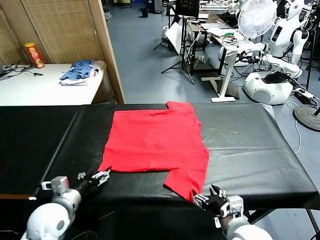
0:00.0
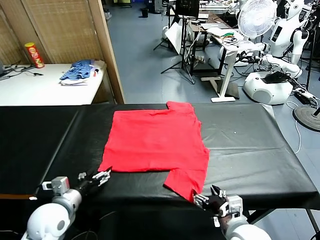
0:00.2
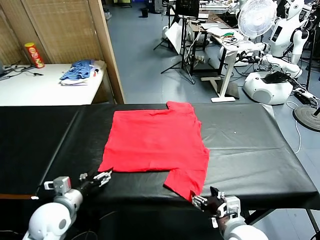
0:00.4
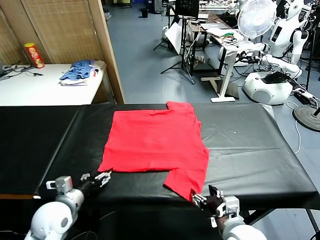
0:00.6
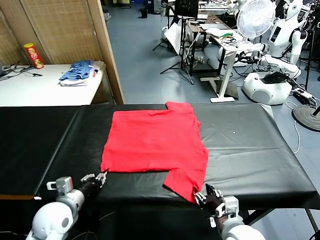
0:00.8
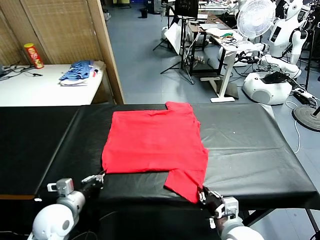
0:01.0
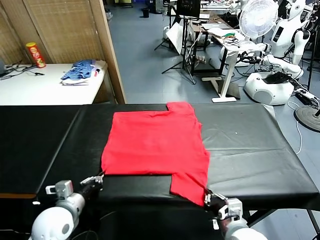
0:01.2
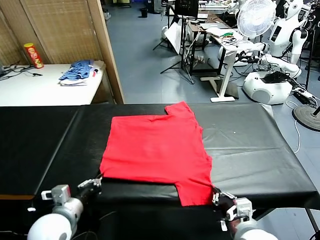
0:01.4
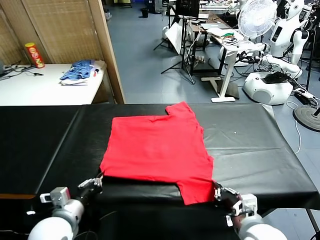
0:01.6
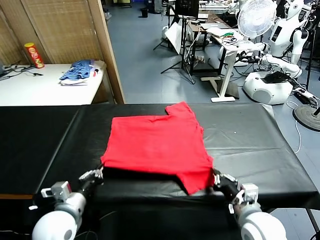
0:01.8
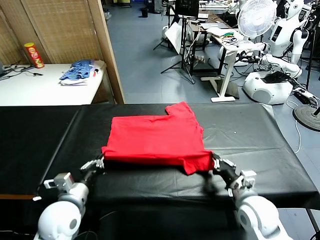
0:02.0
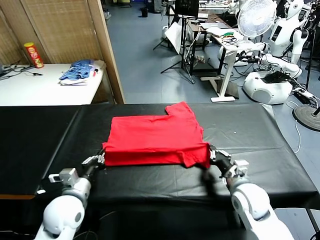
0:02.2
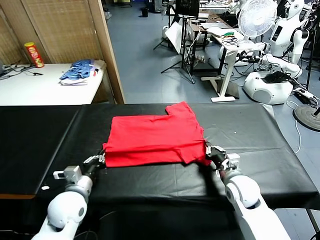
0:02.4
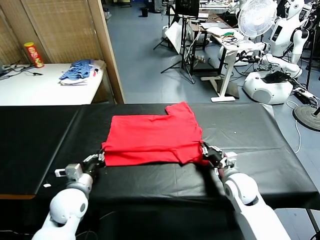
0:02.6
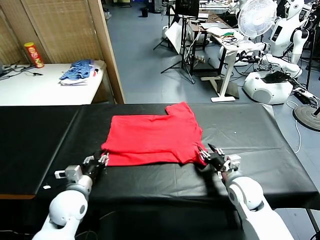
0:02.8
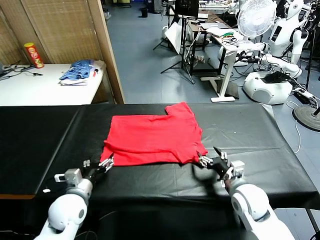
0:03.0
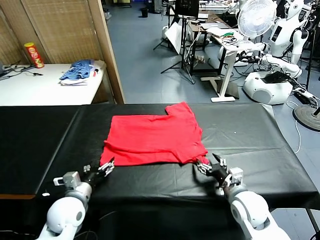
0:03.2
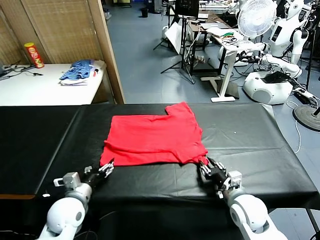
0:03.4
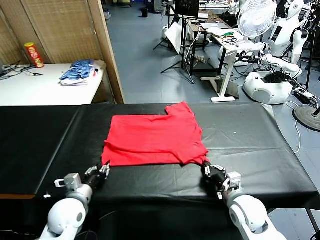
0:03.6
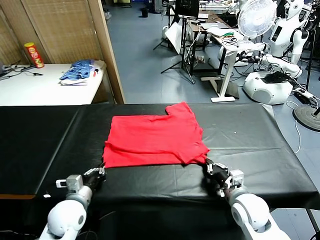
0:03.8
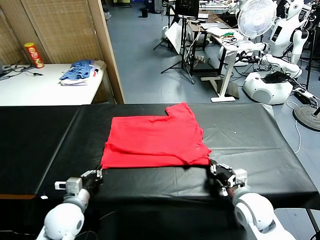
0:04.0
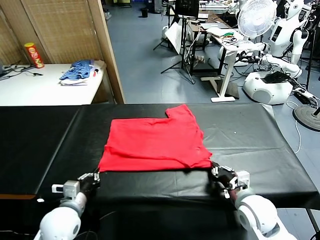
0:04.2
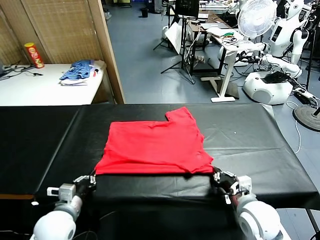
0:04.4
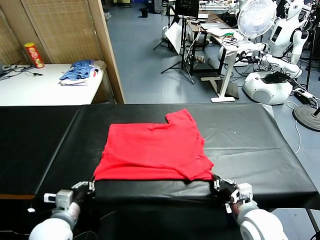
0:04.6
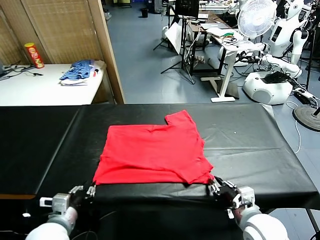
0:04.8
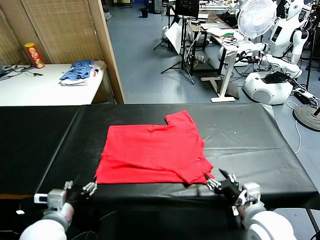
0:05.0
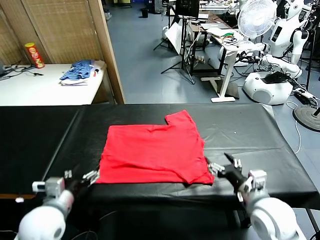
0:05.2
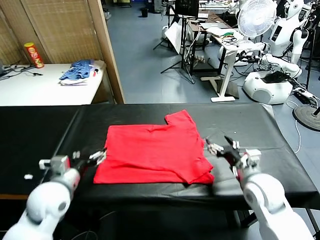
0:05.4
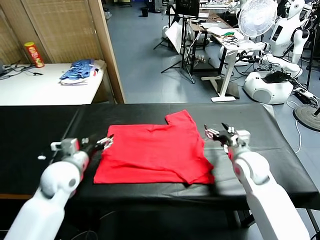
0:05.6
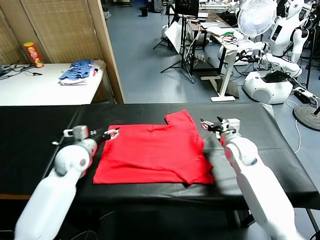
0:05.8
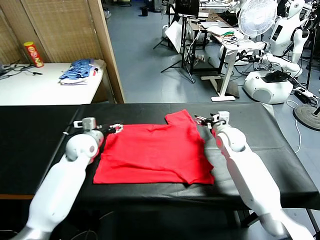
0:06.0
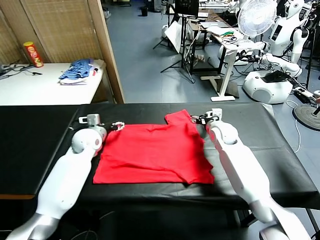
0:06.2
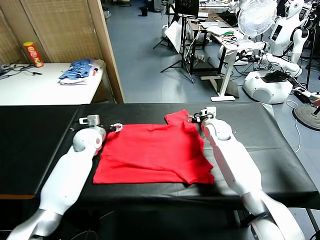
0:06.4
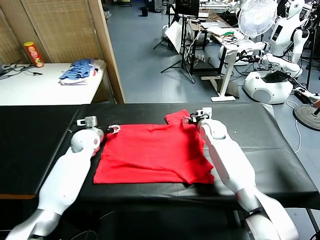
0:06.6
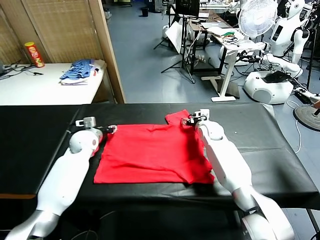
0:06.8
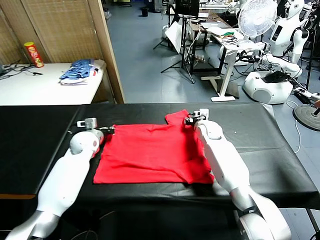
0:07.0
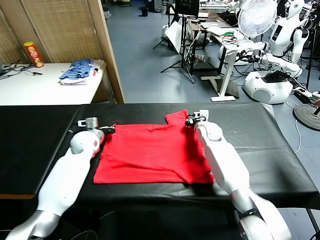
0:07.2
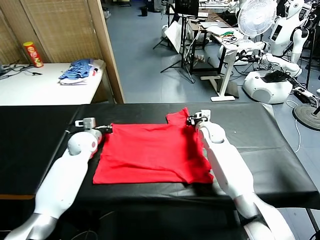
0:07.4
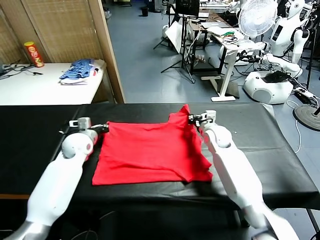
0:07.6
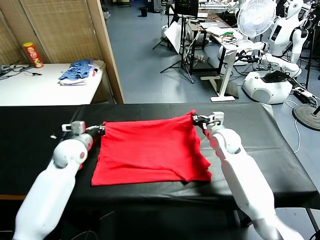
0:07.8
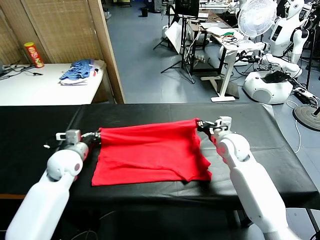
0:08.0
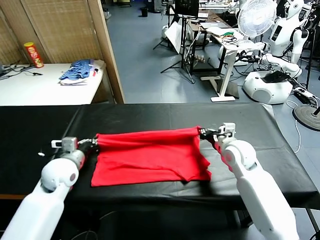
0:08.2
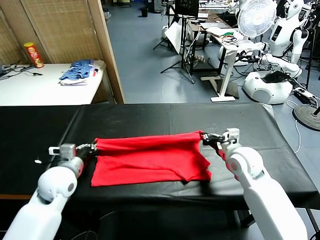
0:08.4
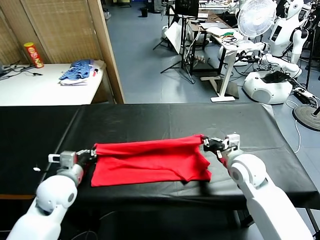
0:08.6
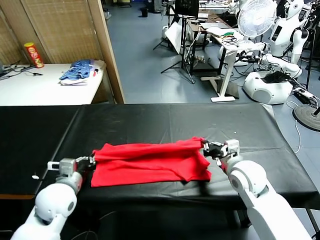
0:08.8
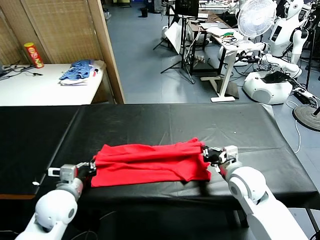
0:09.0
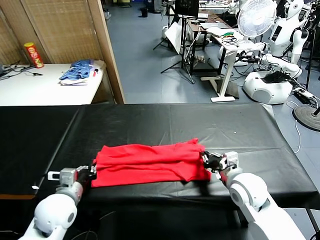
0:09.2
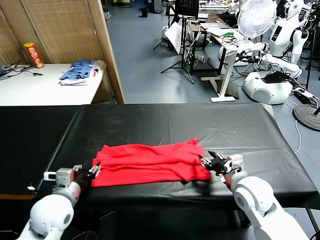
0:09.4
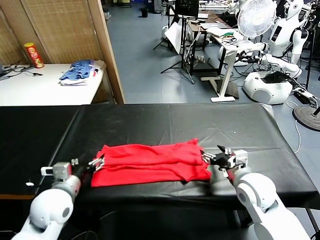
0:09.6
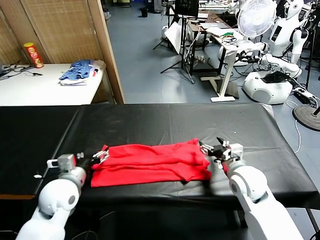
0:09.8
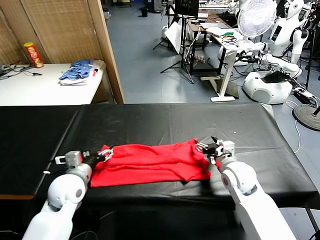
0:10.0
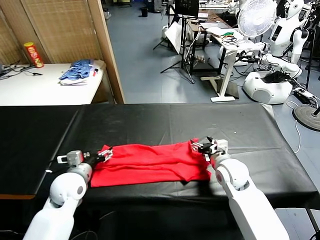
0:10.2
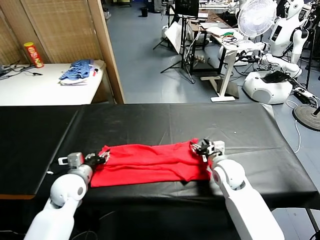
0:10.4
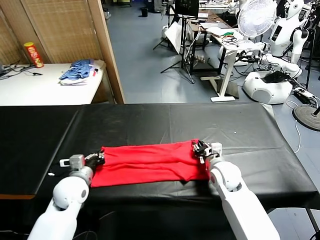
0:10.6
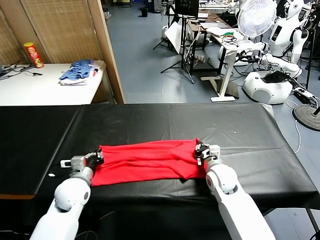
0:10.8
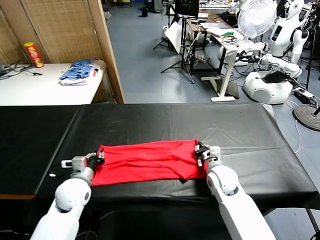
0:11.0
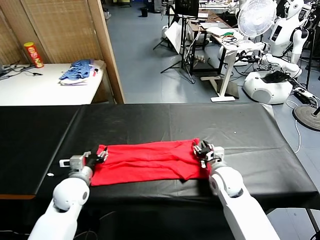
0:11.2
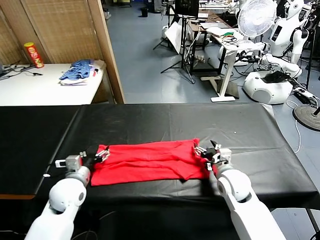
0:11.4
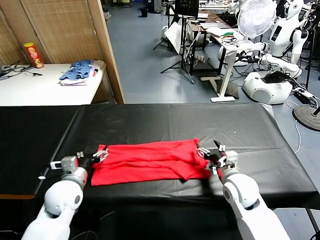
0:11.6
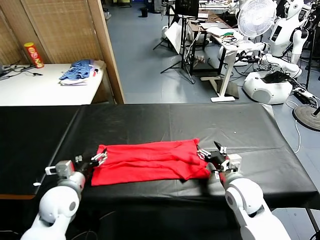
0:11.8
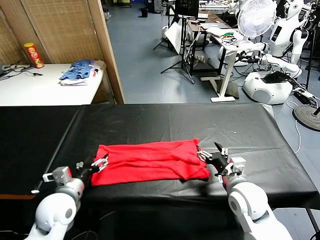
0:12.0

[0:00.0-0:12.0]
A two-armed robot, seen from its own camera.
Task of the whole recording: fold and organize the clothes.
Step, 0:00.0 to 0:01.2: use both grippers simultaneously to clamp the lower edge of the clothing fabric.
Step, 0:01.4 to 0:02.8: use both grippers to drag the lower edge of the fabric forward and fold it over the upper edge.
Step, 0:03.0 to 0:05.0: Drag the clothes downward with both gripper.
Step, 0:05.2 to 0:07.4: use both grippers simultaneously to clamp the upper edge of the clothing fabric.
Step, 0:07.6 to 0:09.4: use both grippers to drag the upper edge of the fabric backward and fold it over the lower edge.
0:01.6 to 0:03.0: The right gripper reaches approximately 10 cm forward, then returns, and opens up. Meanwhile the left gripper heads forward, covering about 5 cm, and opens its fingers.
0:03.0 to 0:04.4: The two grippers go some 5 cm backward. The left gripper closes; the right gripper closes.
0:04.4 to 0:06.0: Both grippers travel together forward, approximately 30 cm. The left gripper opens up. The right gripper opens its fingers.
0:06.0 to 0:07.6: The right gripper is displaced backward by about 5 cm, and closes its fingers. Meanwhile the left gripper closes its fingers.
0:07.6 to 0:09.0: The grippers both shift backward by some 20 cm.
0:09.0 to 0:10.4: The right gripper travels forward and downward by approximately 10 cm, and opens, then closes once more, while the left gripper travels forward by about 5 cm, and opens its fingers.
0:10.4 to 0:12.0: The right gripper heads backward and upward, covering some 10 cm, and opens up. The left gripper moves backward, some 5 cm, and opens up.

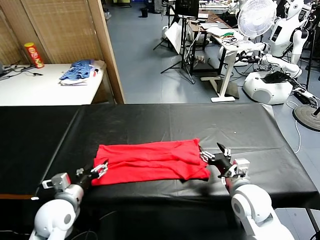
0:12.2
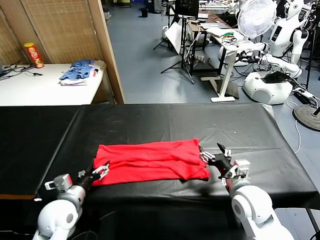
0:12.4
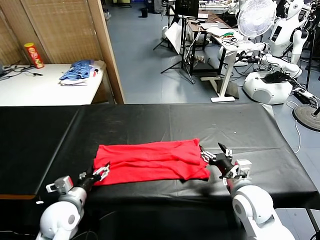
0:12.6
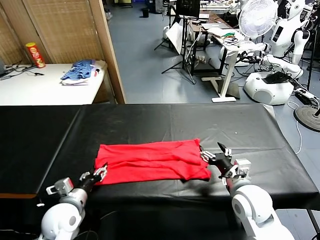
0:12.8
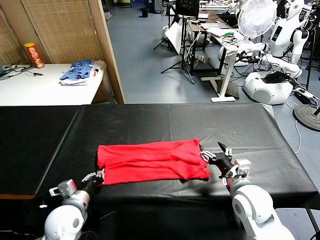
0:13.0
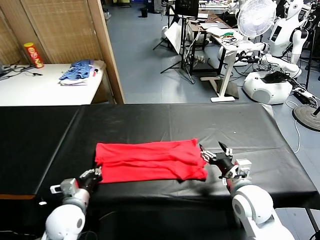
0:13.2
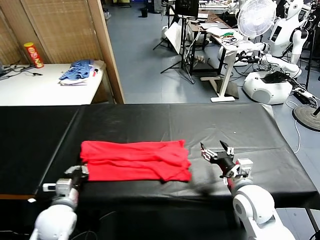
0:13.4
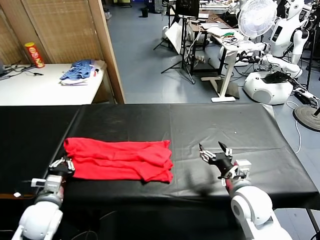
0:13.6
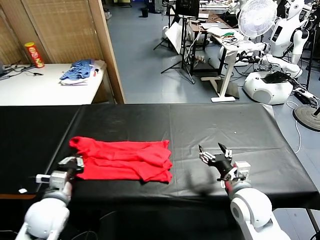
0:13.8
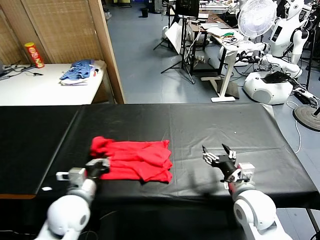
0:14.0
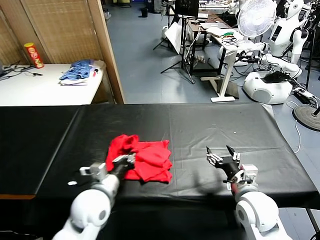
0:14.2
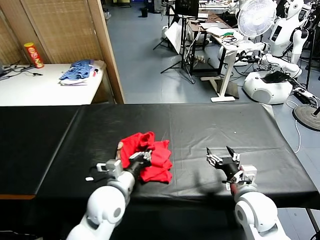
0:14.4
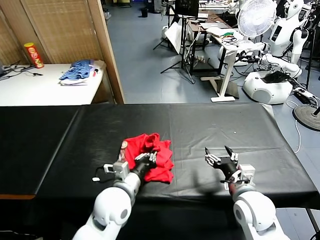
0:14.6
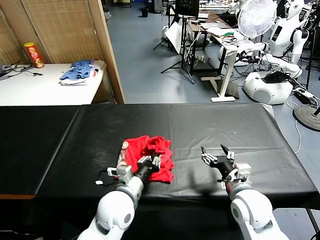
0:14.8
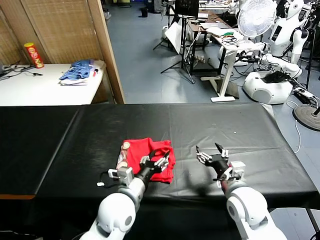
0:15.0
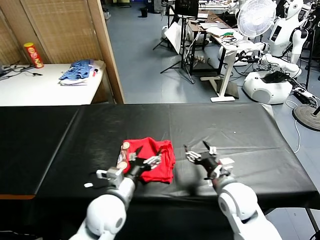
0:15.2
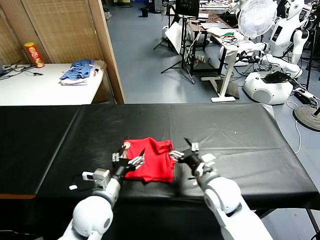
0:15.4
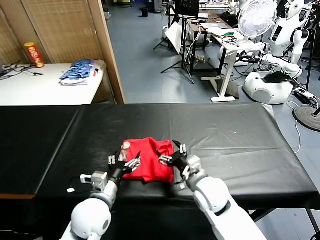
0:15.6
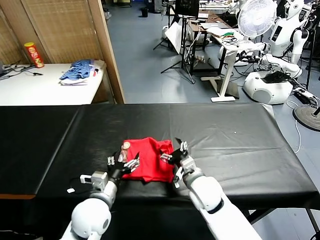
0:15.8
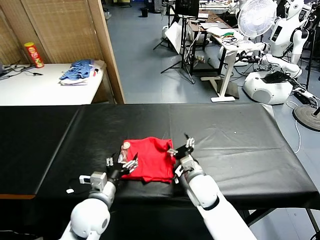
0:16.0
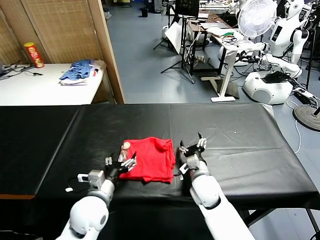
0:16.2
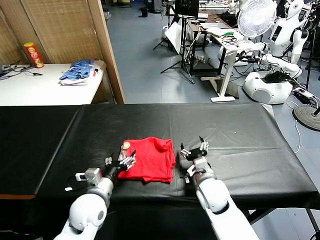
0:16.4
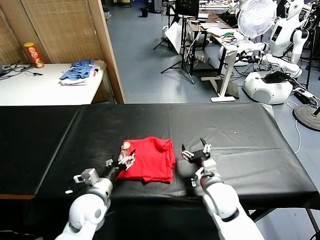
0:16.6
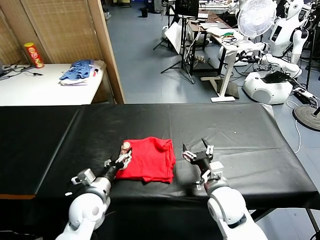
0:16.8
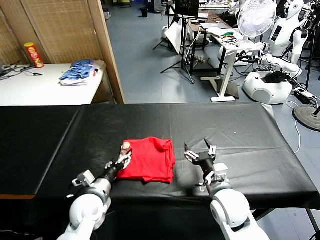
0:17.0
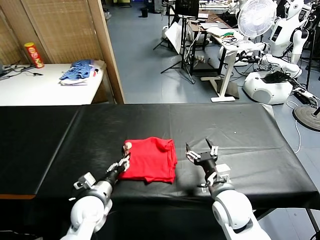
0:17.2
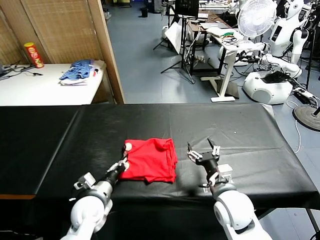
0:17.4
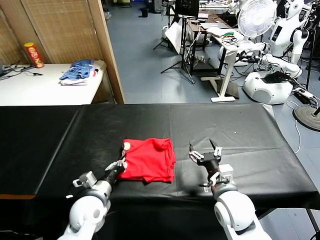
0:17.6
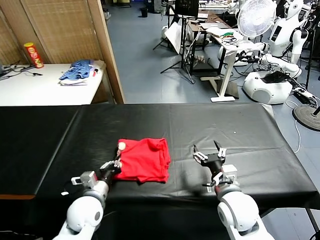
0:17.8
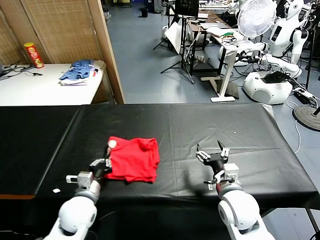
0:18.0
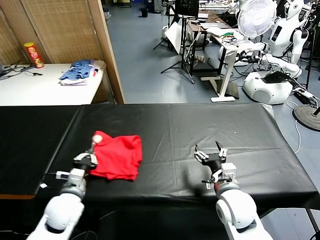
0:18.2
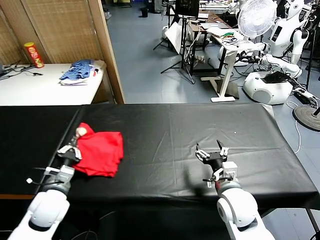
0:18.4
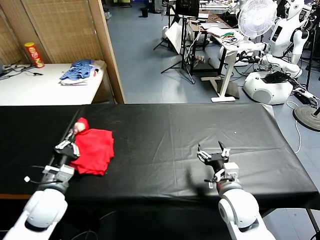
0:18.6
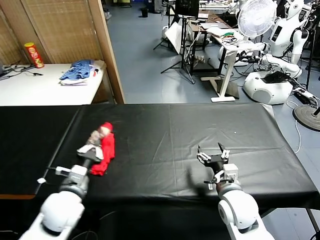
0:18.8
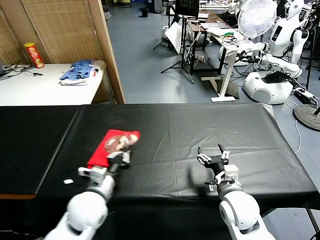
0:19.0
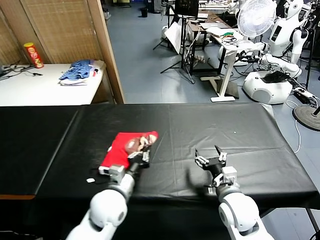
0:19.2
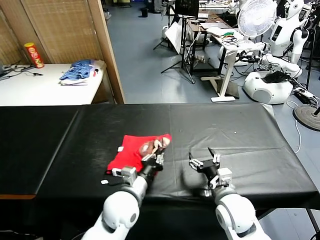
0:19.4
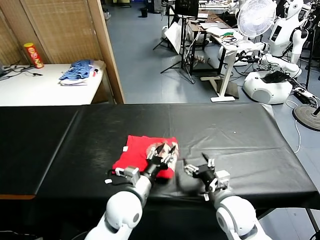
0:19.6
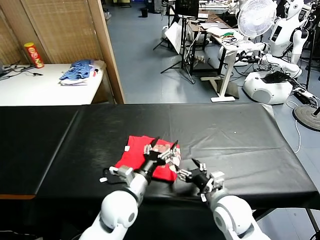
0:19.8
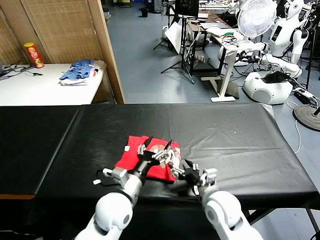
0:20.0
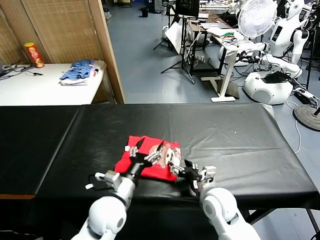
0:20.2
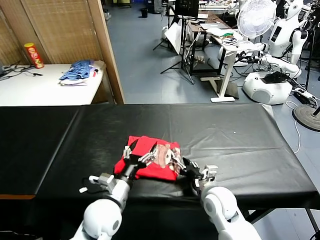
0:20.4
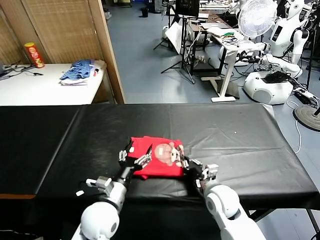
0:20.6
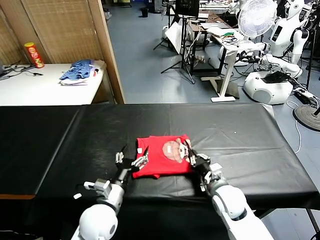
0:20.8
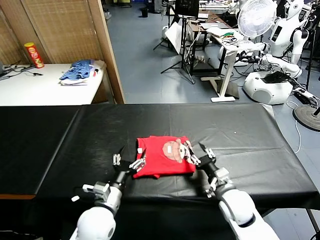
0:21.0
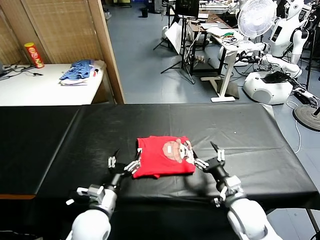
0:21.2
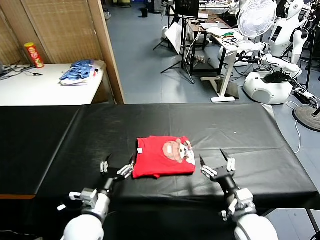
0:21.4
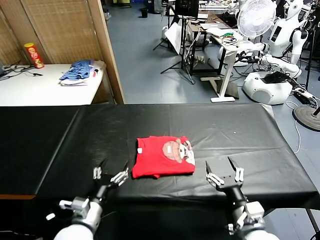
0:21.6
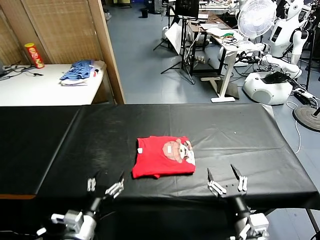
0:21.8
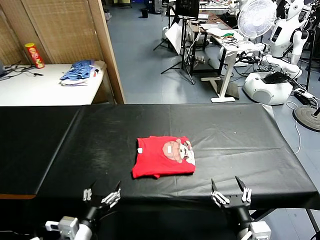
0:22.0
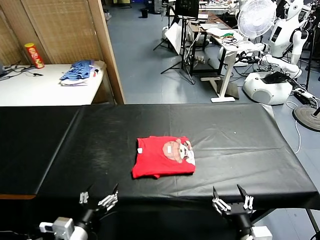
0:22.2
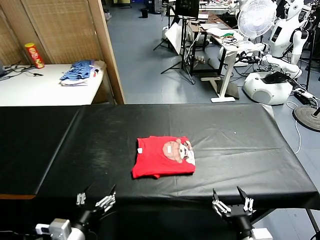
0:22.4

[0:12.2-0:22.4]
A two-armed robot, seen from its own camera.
Task of the whole recording: fold and organize the clothes.
Step, 0:13.6 to 0:15.0: use the left gripper to drag the left edge of the fabric to the left and folds it over the right edge.
Step, 0:15.2 to 0:19.6: Flip the folded clothes over with left gripper.
Step, 0:19.8 to 0:21.0: Drag the clothes to the center of the table.
0:12.2 to 0:13.6: The left gripper closes.
0:13.6 to 0:15.2: The left gripper travels to the right by roughly 20 cm, and opens its fingers, while the right gripper ends up about 5 cm from where it was.
0:15.2 to 0:16.6: The left gripper goes some 5 cm to the left.
0:16.6 to 0:18.0: The right gripper changes place by some 5 cm. The left gripper closes up.
0:18.0 to 0:19.4: The left gripper goes some 15 cm to the right.
0:19.4 to 0:21.0: The right gripper ends up about 5 cm from where it was, and closes its fingers. Meanwhile the left gripper goes some 5 cm to the left, and opens.
0:21.0 to 0:22.4: The left gripper moves backward, to the left and upward, roughly 15 cm, while the right gripper heads backward, covering some 20 cm, and opens up.
